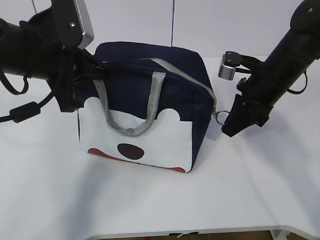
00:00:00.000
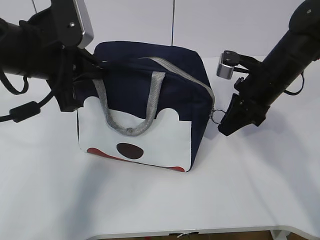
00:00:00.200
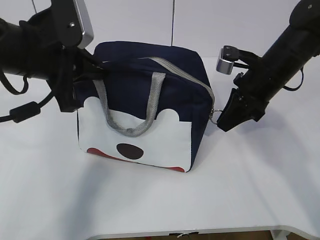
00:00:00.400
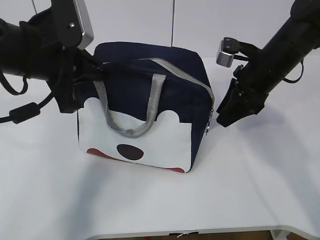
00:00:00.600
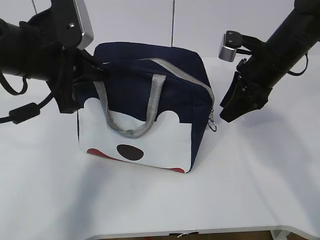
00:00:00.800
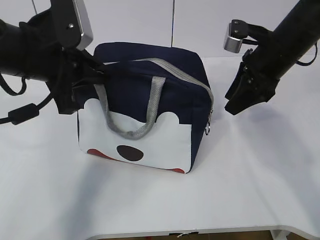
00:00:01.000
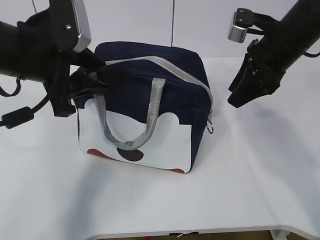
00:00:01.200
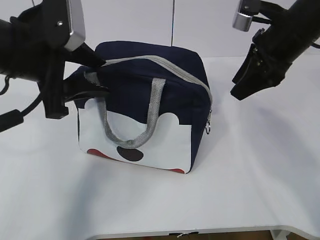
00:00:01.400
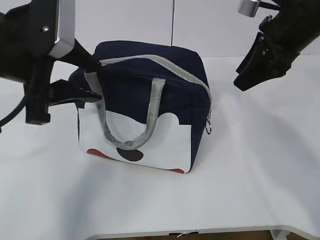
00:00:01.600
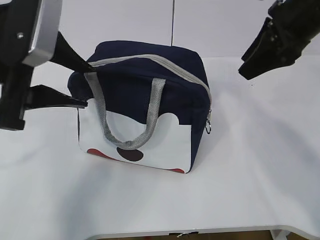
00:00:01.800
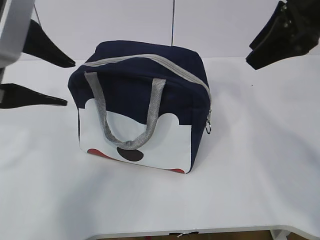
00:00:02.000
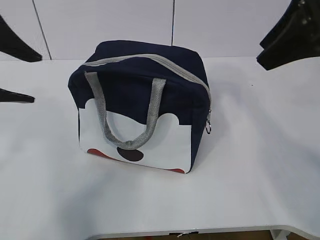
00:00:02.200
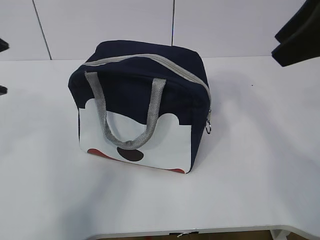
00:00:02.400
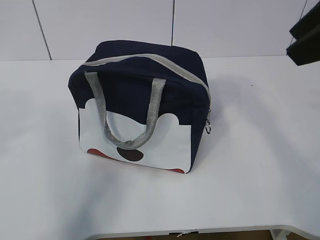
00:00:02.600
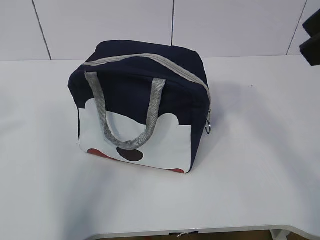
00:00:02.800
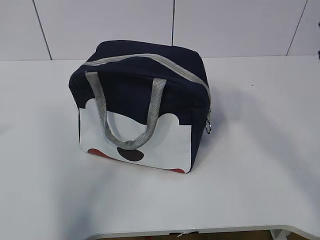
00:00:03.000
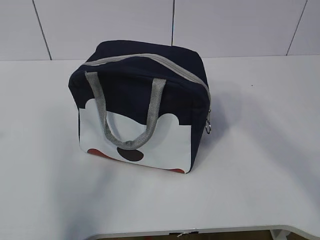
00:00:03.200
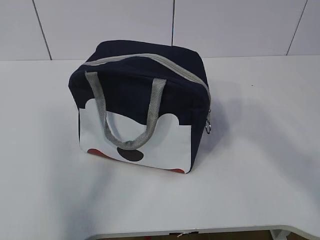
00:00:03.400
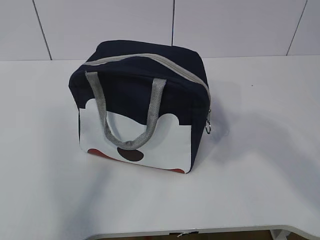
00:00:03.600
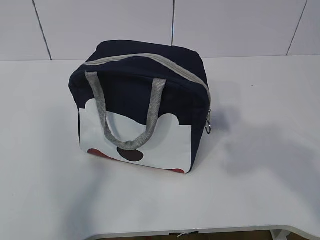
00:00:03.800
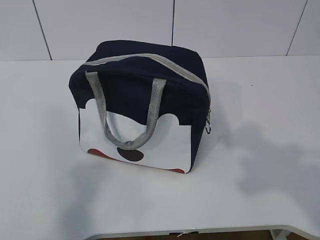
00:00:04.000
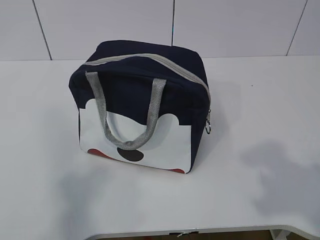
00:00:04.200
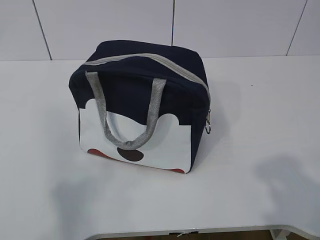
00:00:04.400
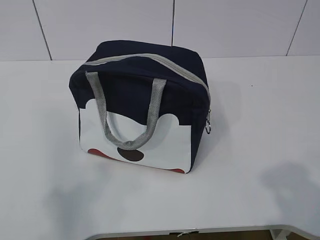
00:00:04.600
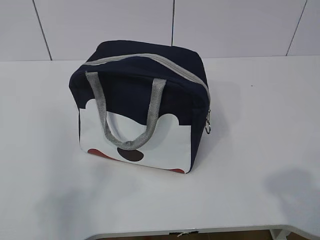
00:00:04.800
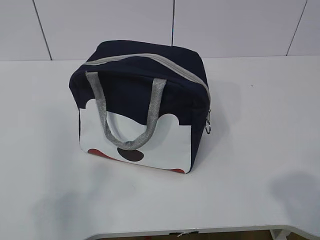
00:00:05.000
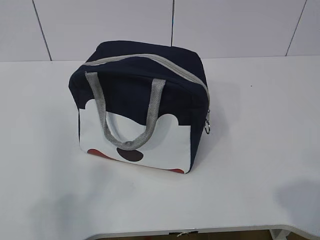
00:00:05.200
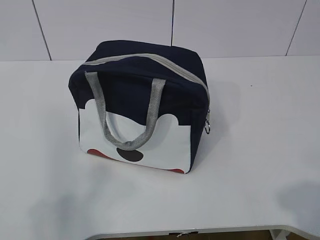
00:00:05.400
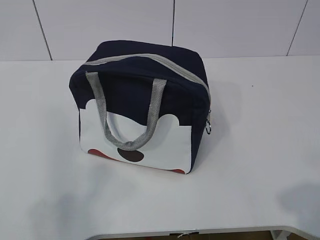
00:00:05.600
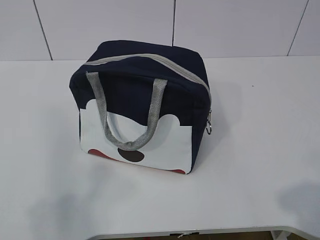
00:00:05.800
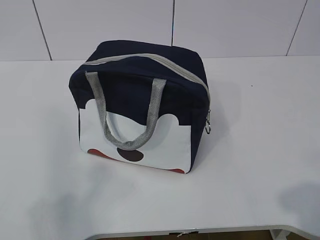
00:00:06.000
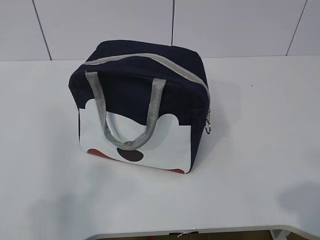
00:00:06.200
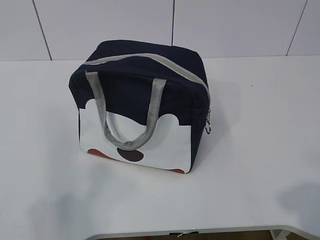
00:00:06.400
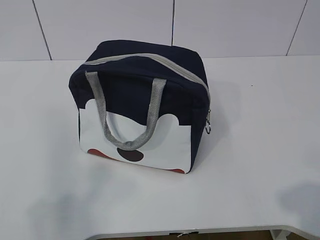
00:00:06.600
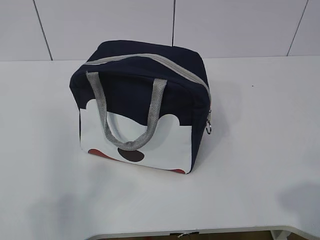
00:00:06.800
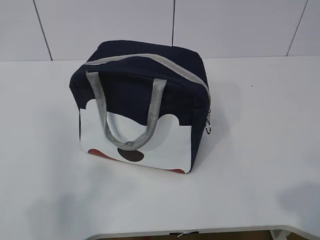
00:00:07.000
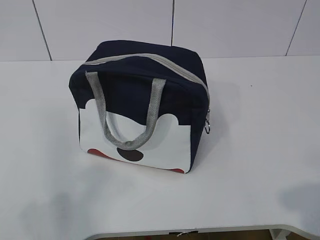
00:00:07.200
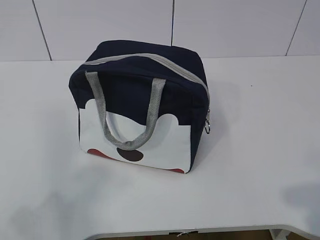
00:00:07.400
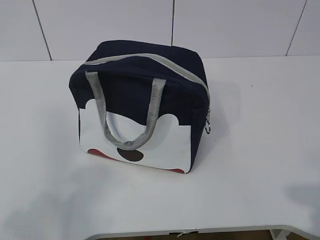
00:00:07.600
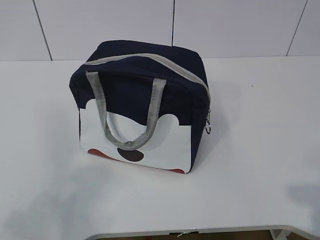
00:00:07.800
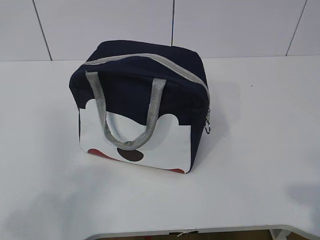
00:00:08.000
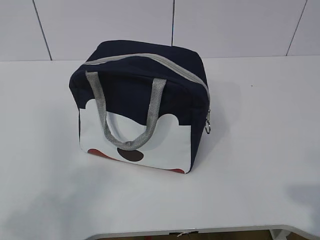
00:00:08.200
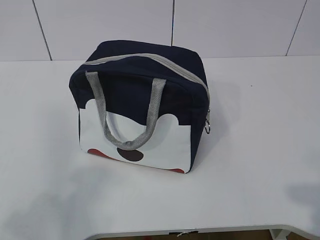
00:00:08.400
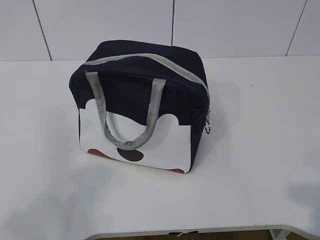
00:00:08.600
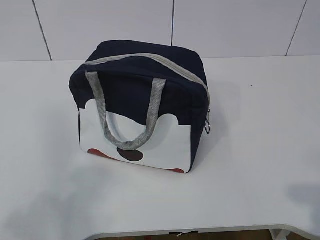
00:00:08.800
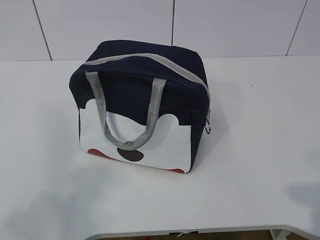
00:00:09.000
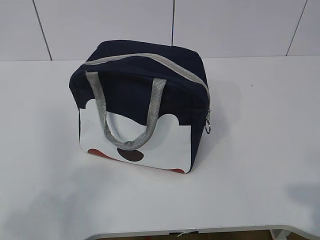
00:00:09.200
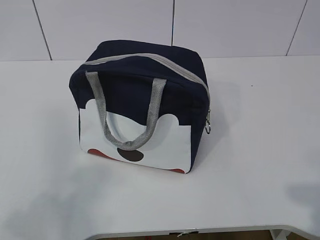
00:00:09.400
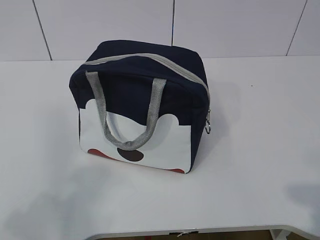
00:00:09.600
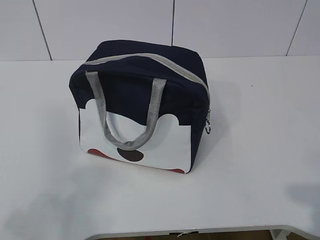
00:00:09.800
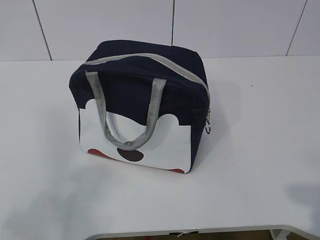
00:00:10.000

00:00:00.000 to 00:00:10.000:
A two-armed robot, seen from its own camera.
00:00:00.000 to 00:00:01.400: The left gripper opens its fingers. The right gripper heads upward, covering approximately 10 cm, and opens.
00:00:01.400 to 00:00:02.800: The left gripper is displaced backward, upward and to the left by roughly 20 cm. Meanwhile the right gripper is displaced backward and upward by roughly 20 cm.
00:00:02.800 to 00:00:04.200: The two grippers go approximately 15 cm backward and downward.
00:00:04.200 to 00:00:05.800: The right gripper is displaced downward by approximately 5 cm.
00:00:05.800 to 00:00:07.200: The grippers stay close to where they were, moving slightly.
00:00:08.600 to 00:00:10.000: Both grippers stay about where they are.

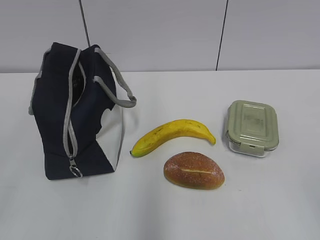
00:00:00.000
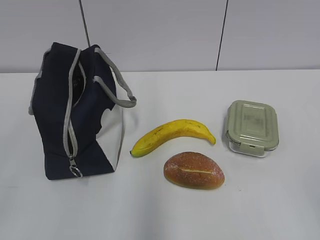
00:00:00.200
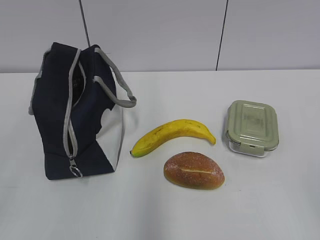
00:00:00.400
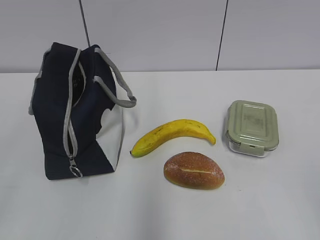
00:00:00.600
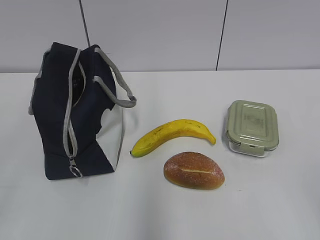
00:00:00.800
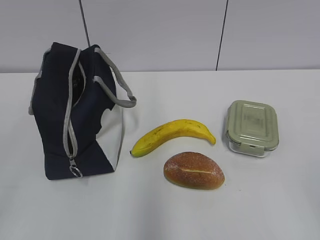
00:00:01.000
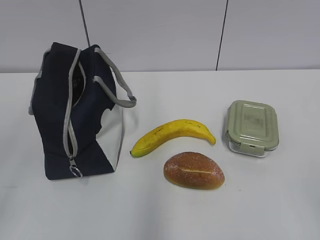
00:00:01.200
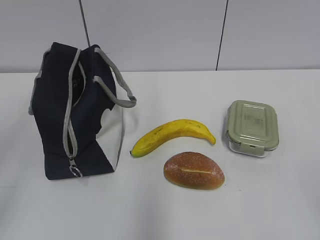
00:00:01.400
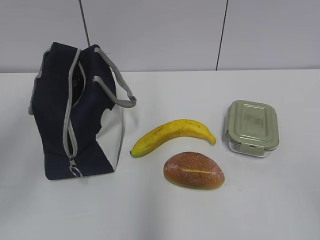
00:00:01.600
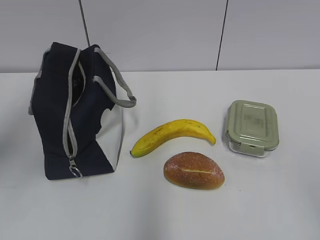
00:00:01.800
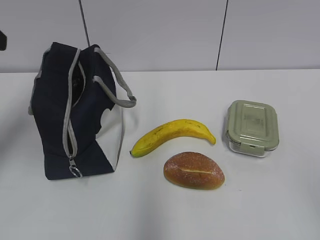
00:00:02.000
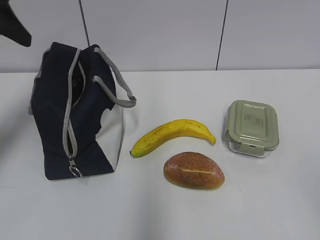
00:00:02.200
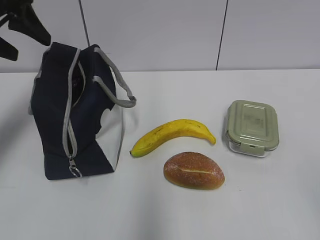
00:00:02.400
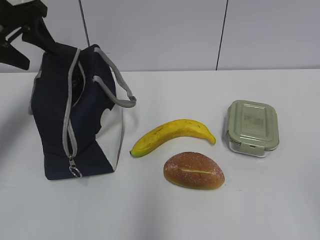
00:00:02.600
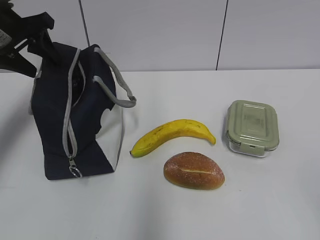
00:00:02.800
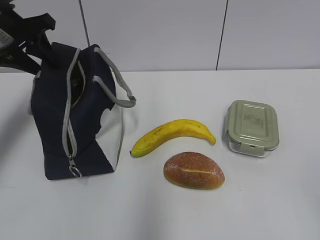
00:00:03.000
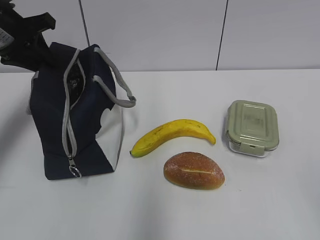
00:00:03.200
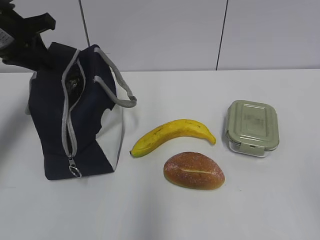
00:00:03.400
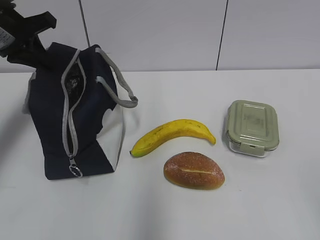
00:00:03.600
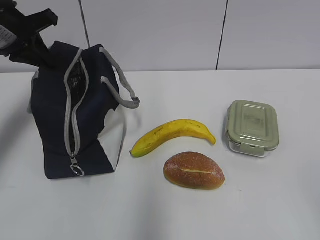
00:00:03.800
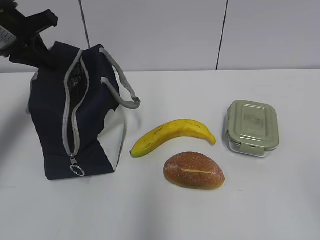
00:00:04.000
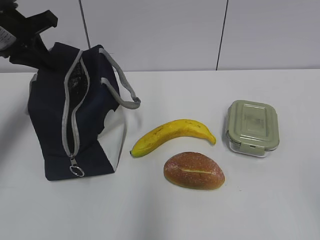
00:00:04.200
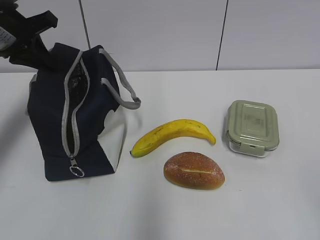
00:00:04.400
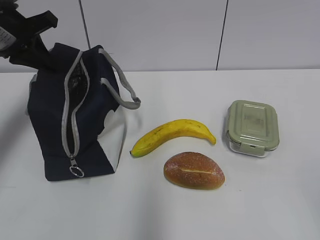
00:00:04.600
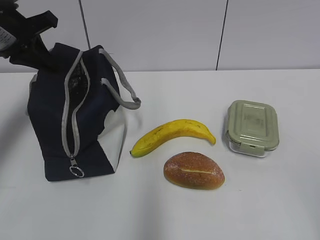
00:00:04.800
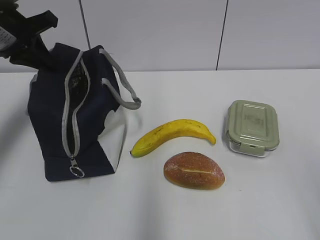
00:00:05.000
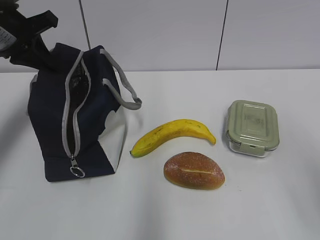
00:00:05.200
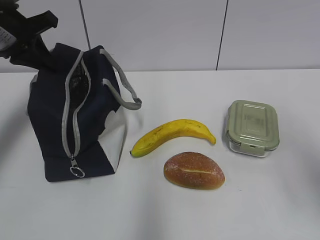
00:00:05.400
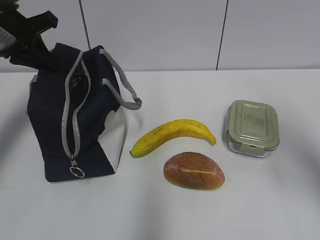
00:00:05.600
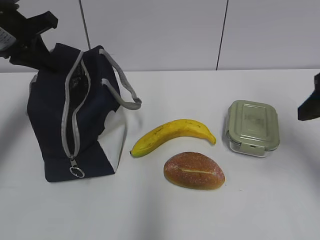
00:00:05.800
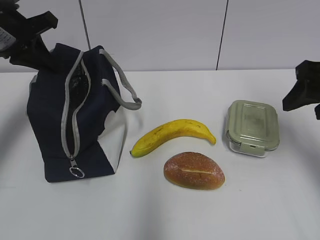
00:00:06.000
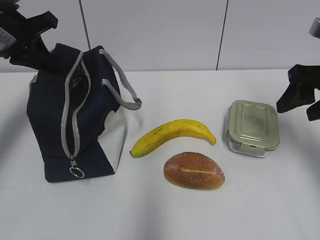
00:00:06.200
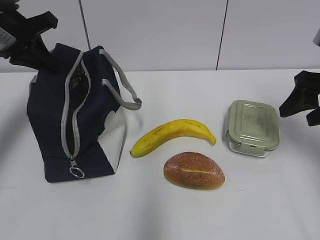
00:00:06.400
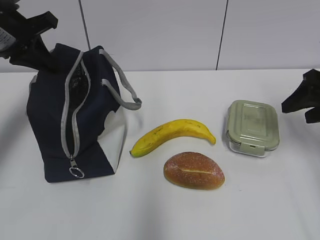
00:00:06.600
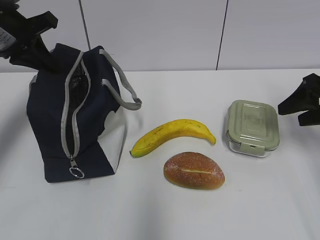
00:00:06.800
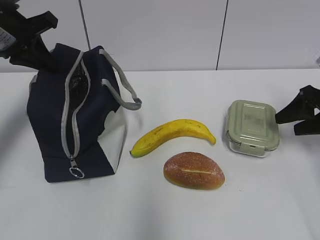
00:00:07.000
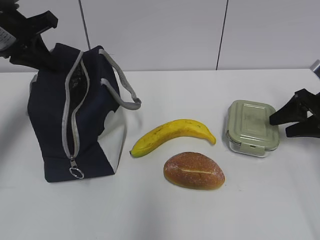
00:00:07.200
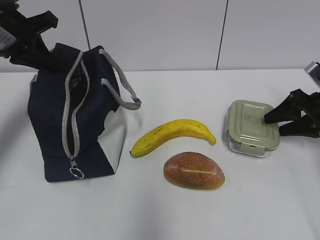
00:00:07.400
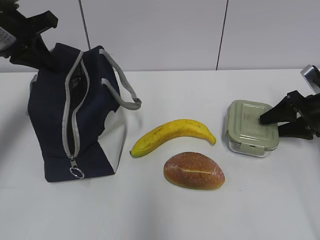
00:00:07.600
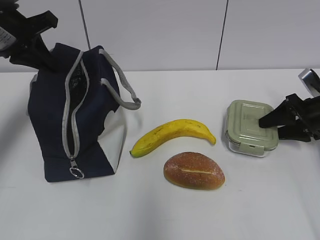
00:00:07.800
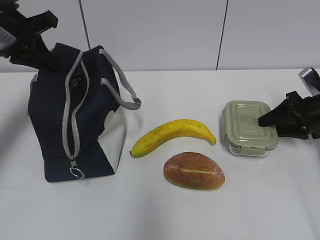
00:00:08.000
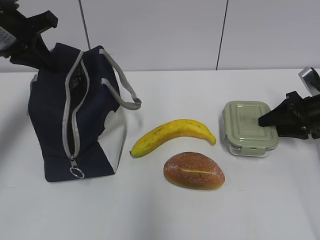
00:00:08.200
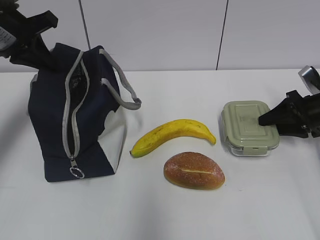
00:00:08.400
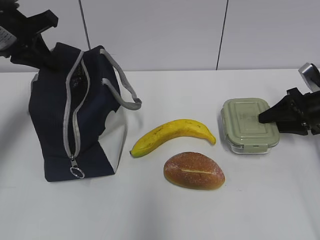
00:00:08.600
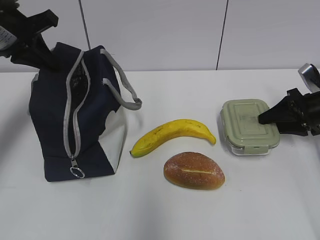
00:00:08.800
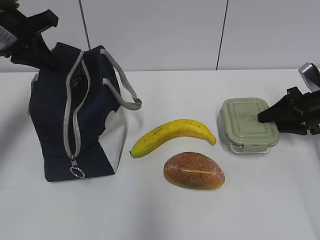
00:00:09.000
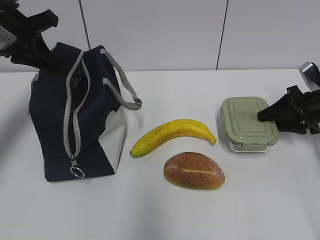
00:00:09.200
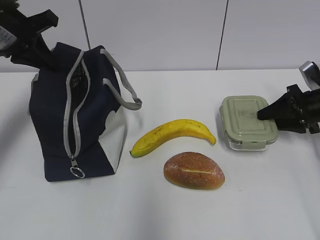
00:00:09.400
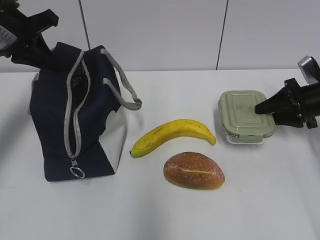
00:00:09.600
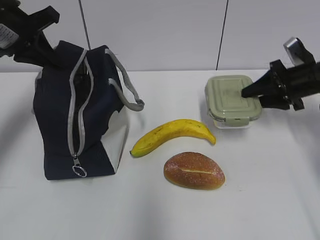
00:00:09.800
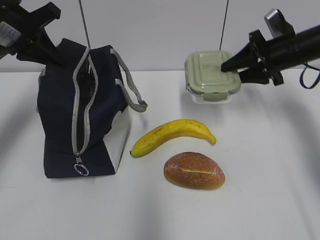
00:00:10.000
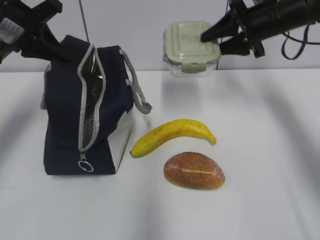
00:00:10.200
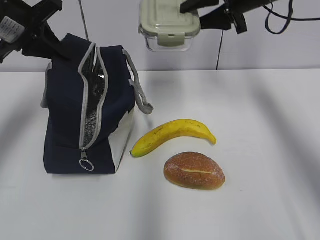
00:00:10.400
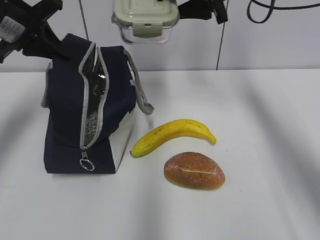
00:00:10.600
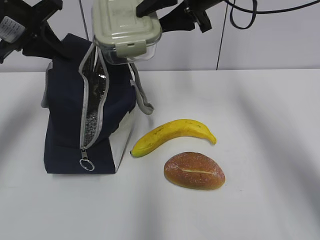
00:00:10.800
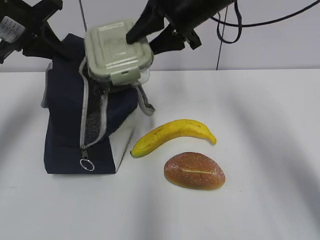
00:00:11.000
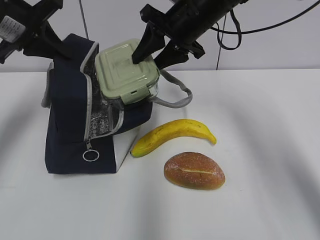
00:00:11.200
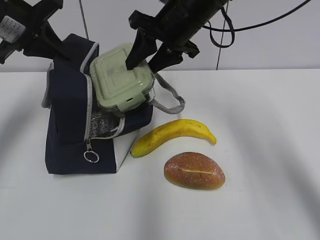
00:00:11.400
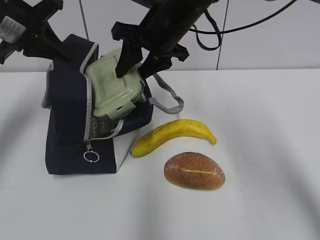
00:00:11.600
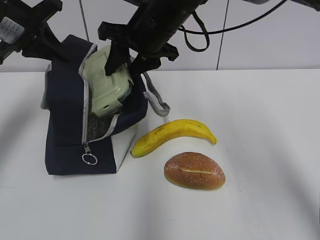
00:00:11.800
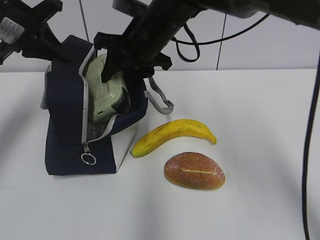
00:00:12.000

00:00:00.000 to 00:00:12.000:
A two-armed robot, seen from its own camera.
00:00:01.600 to 00:00:03.000: The left gripper goes some 25 cm forward.
00:00:03.000 to 00:00:04.400: The left gripper closes.
00:00:04.400 to 00:00:06.000: The right gripper moves forward, about 30 cm.
00:00:06.000 to 00:00:07.600: The right gripper travels downward, forward and to the right by about 20 cm.
00:00:07.600 to 00:00:09.000: The two grippers keep their place.
00:00:09.000 to 00:00:10.400: The right gripper shifts about 25 cm upward and to the left.
00:00:10.400 to 00:00:12.000: The right gripper travels to the left by some 20 cm.
